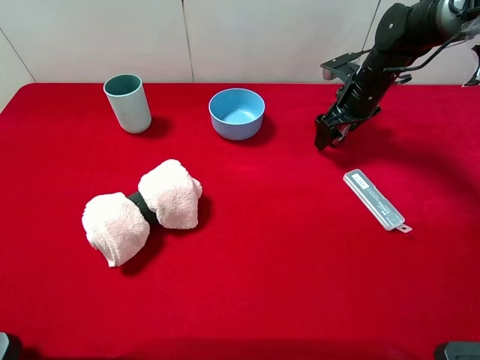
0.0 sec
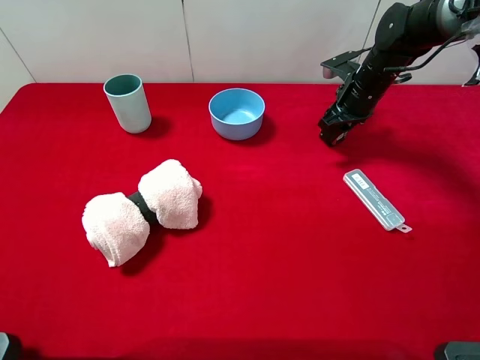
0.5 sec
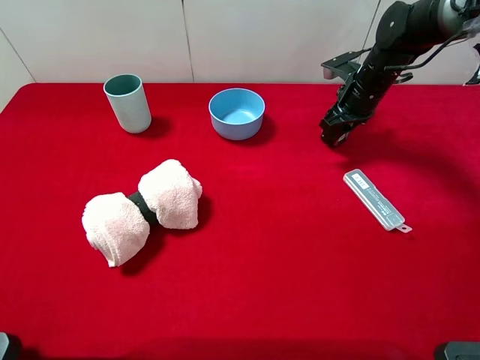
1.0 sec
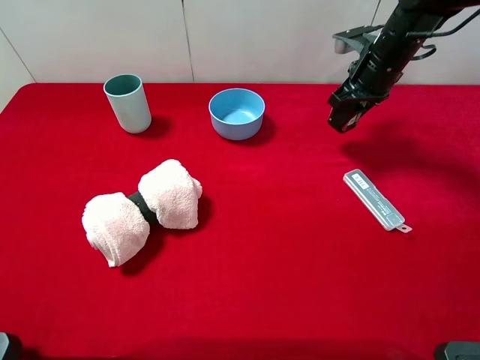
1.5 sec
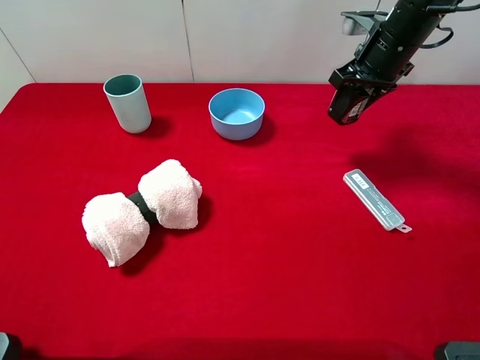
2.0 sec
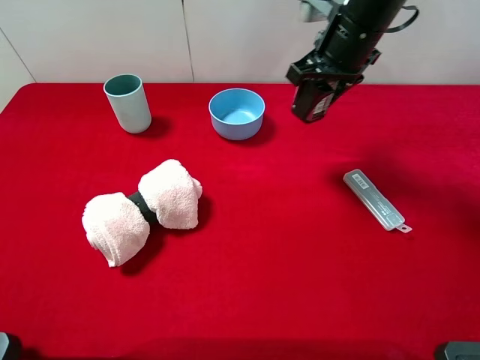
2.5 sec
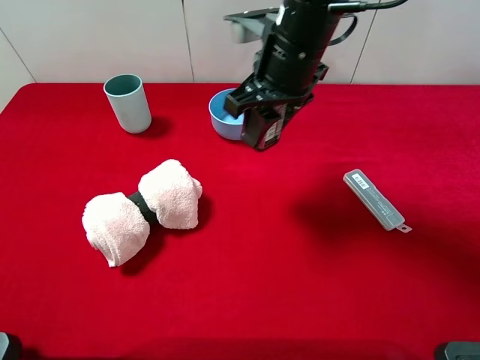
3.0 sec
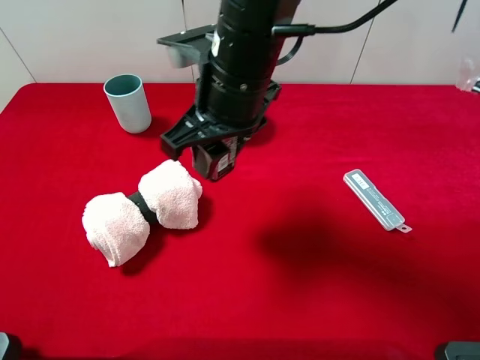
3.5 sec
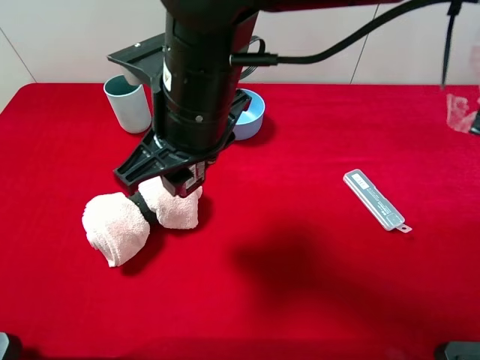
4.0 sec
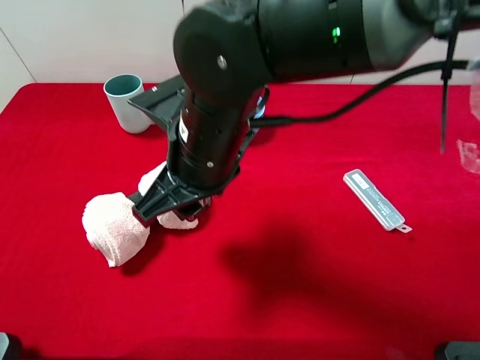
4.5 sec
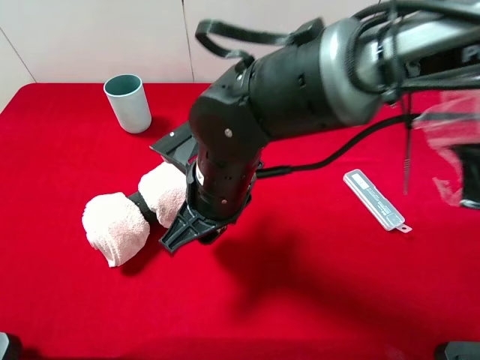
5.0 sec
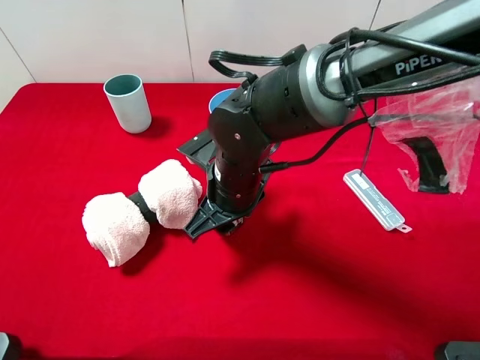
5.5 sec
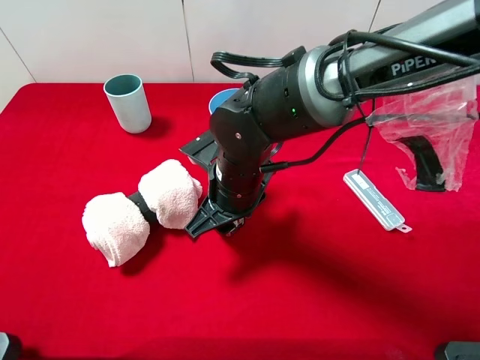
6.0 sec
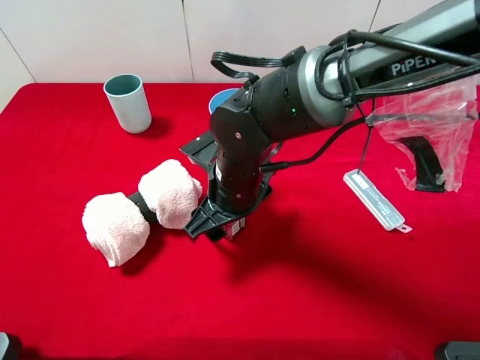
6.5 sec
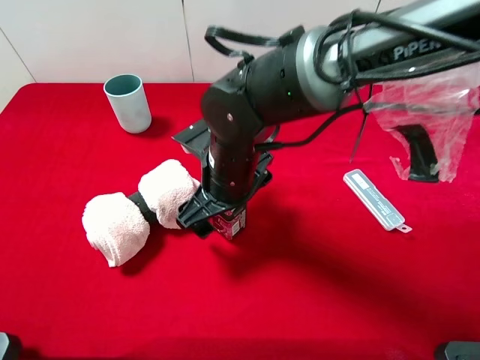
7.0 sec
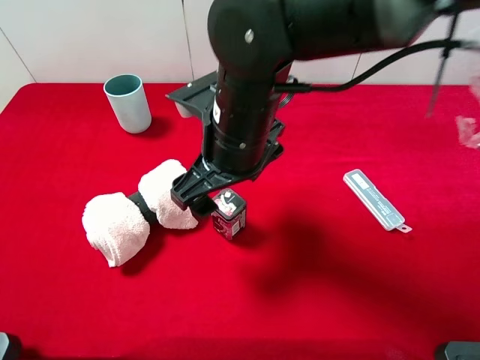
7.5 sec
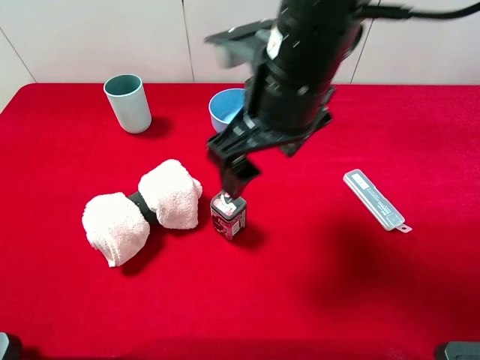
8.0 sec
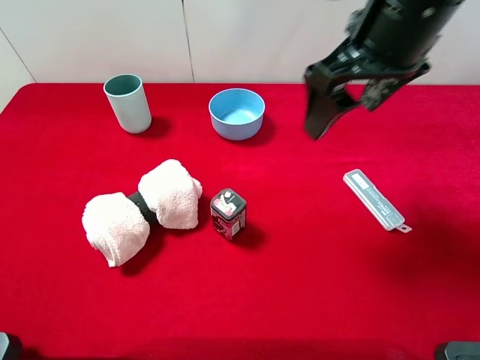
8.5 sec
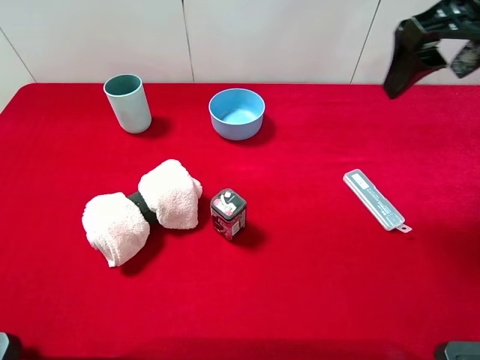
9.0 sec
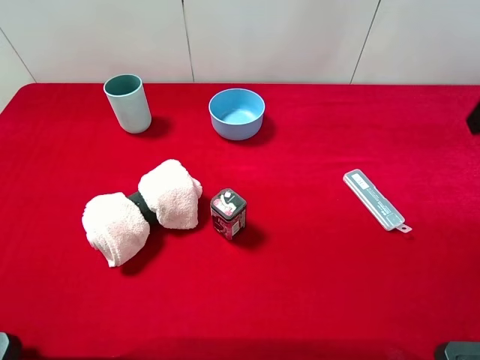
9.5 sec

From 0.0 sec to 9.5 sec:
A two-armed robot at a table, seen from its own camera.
Task of the whole recording: the gripper move the object.
Step, from 1.0 sec to 7.0 sec: Place the square chewing gum on the table with the right gripper.
From 0.0 sec to 2.0 sec: The right gripper shifts some 10 cm upward, and closes its fingers.
From 2.0 sec to 4.0 sec: The right gripper shifts roughly 30 cm to the left and backward.
From 4.0 sec to 5.5 sec: The right gripper heads downward, covering approximately 15 cm.
From 5.5 sec to 7.5 sec: The right gripper travels upward by approximately 10 cm, and opens up.
From 7.5 sec to 9.5 sec: The right gripper is displaced to the right and upward by roughly 30 cm.

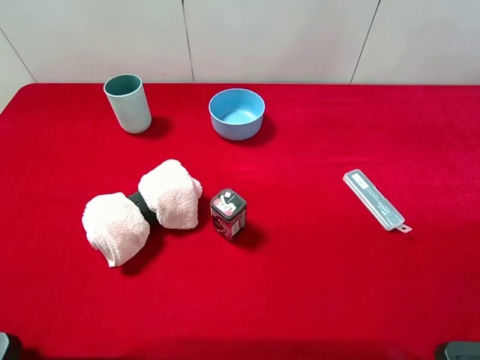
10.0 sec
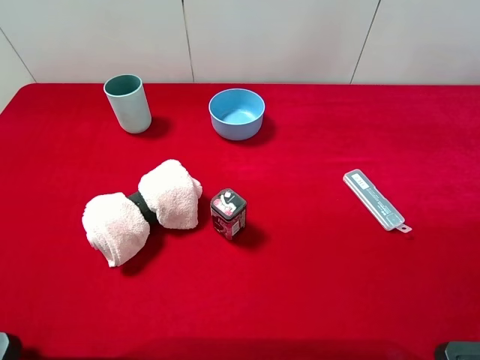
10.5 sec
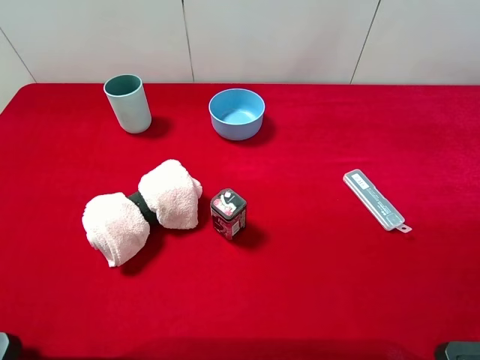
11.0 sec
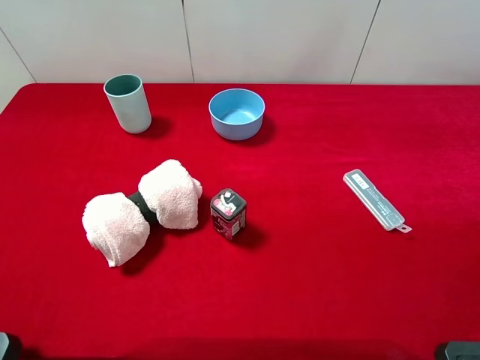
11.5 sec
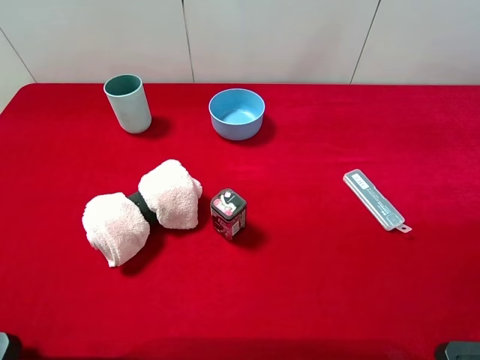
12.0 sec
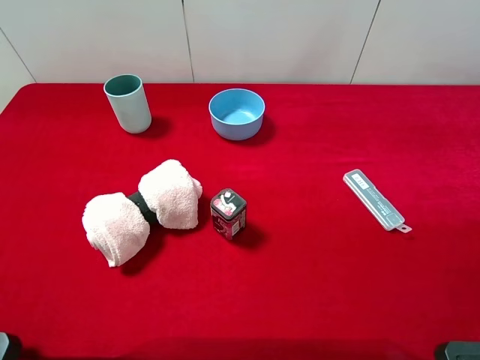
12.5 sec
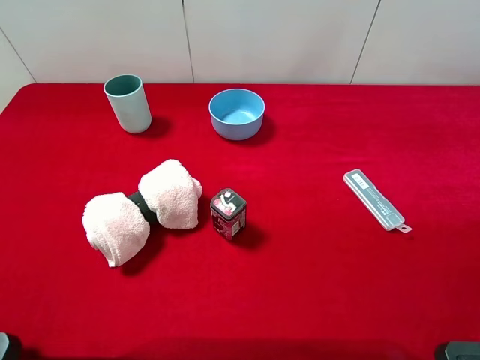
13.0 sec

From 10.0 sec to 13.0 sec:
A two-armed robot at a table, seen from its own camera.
Task of the whole recording: the gripper move the object.
From 11.5 sec to 13.0 sec: Both grippers stay put.
